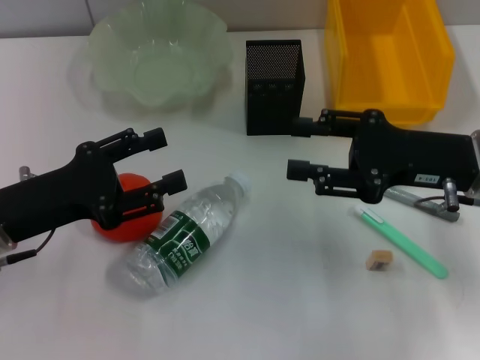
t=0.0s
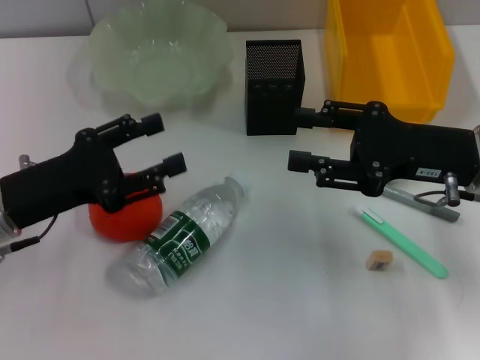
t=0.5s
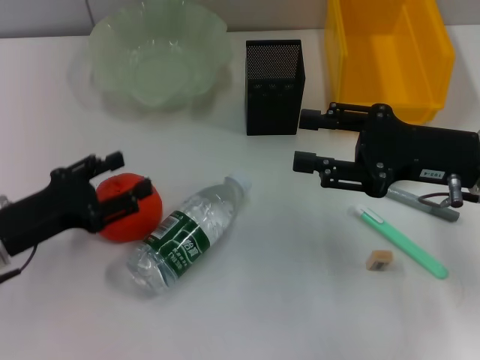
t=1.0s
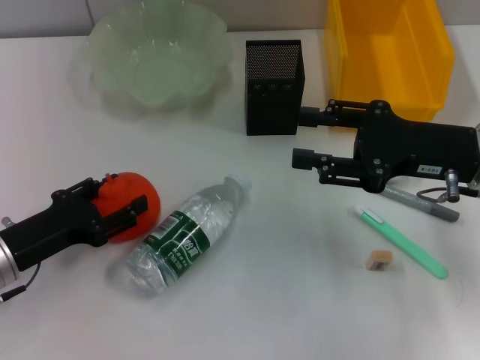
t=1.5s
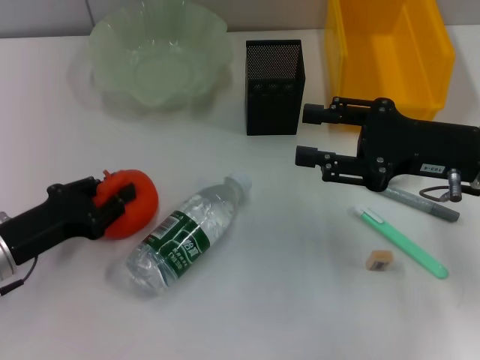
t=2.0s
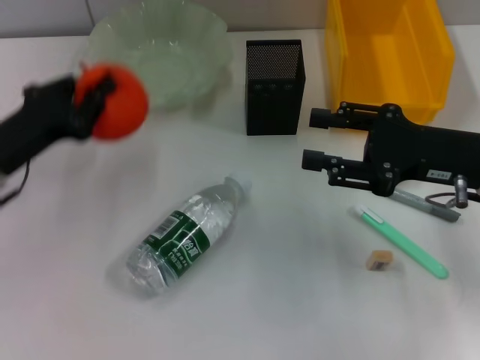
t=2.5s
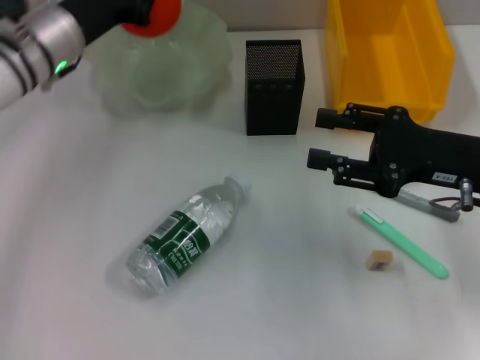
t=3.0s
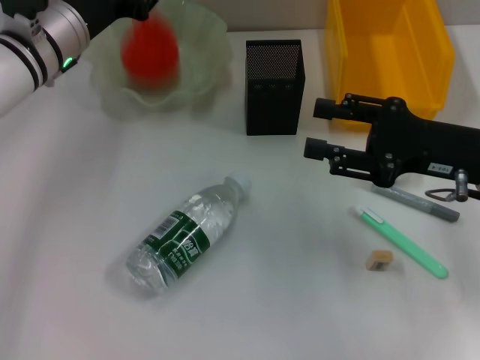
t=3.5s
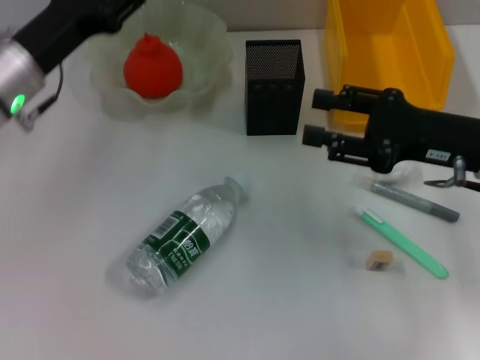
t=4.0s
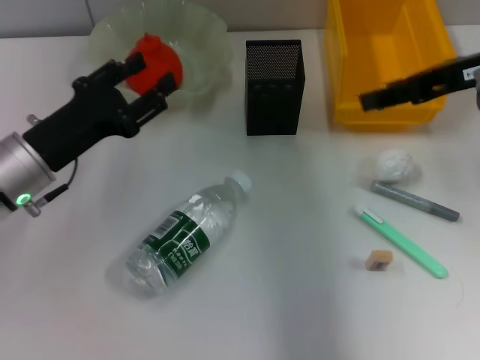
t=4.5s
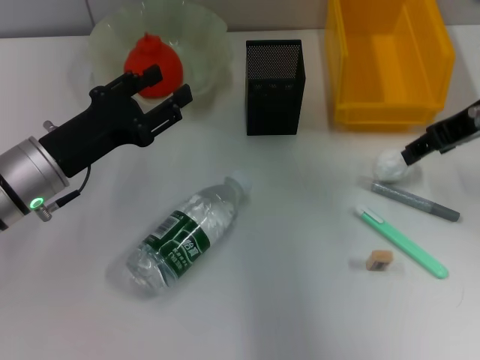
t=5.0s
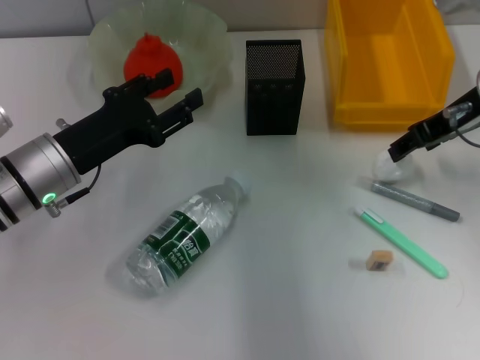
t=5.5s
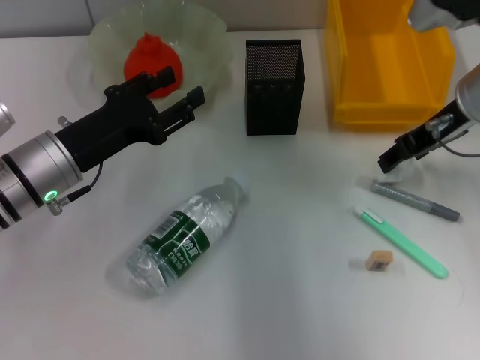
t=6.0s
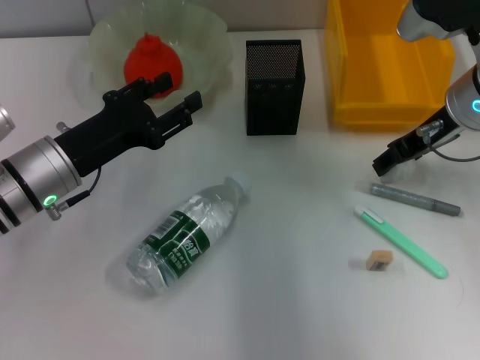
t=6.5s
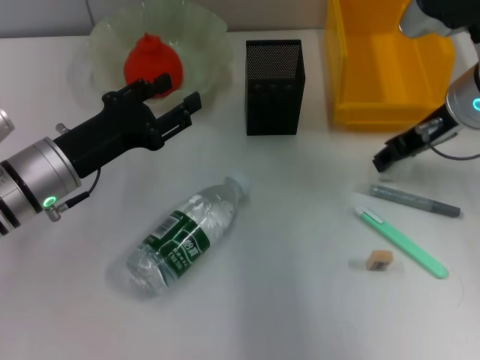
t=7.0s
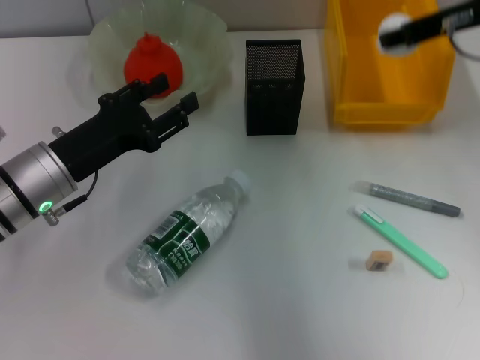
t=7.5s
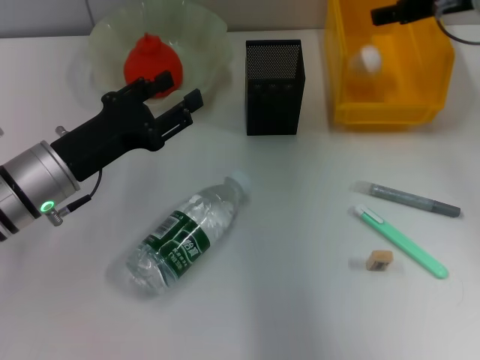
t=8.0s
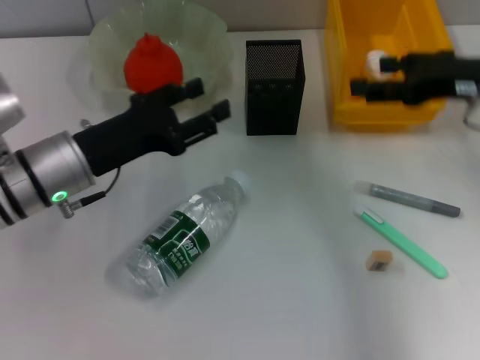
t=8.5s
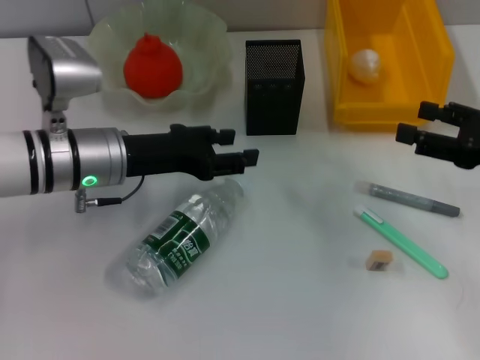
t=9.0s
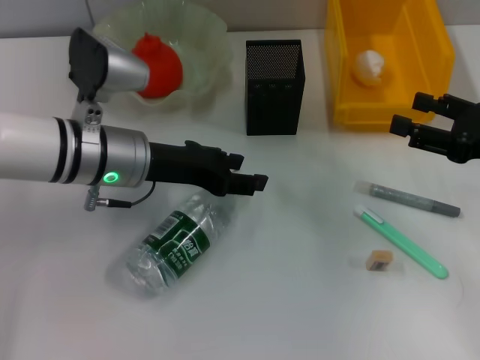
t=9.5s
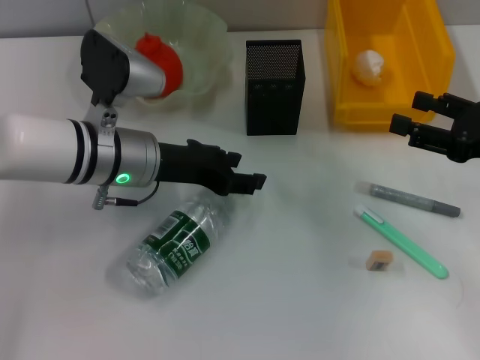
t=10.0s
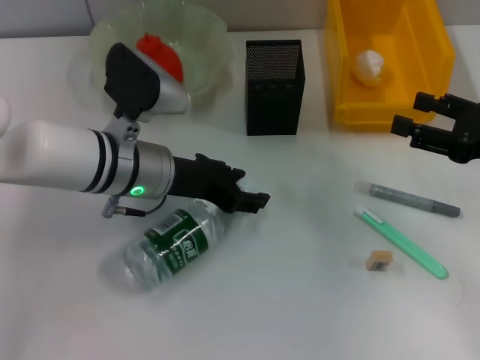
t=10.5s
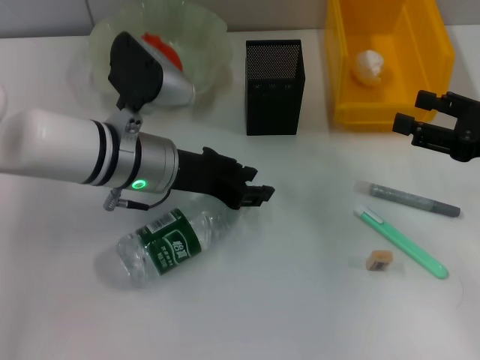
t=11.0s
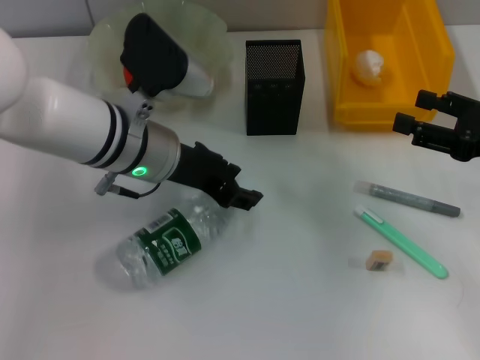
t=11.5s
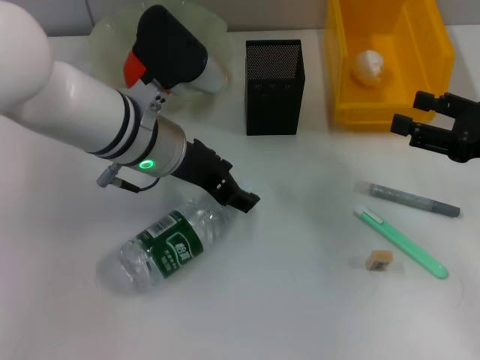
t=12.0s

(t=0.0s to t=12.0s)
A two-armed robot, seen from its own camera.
Step, t=0.0s - t=2.0s: Grab the orange with the left hand.
Step, t=2.5s - t=3.5s: Place the orange into the fruit bowl with the left hand.
Step, t=4.0s - t=6.5s: Grab the paper ball with the right hand.
Step, t=7.0s - t=8.0s: Place the paper ball into the trash can with the right hand.
t=0.0s - t=2.0s: The left gripper goes approximately 5 cm downward.
t=2.0s - t=4.0s: The left gripper heads forward and upward, covering roughly 15 cm, and closes, then reopens.
t=4.0s - t=6.0s: The left gripper shifts by some 5 cm. The right gripper moves forward, about 5 cm.
t=6.0s - t=8.0s: The right gripper moves upward, about 5 cm.
t=8.0s - t=10.0s: The right gripper moves backward, downward and to the right, some 20 cm, while the left gripper moves to the right, roughly 5 cm.
t=10.0s - t=12.0s: The left gripper ends up some 5 cm from where it was.

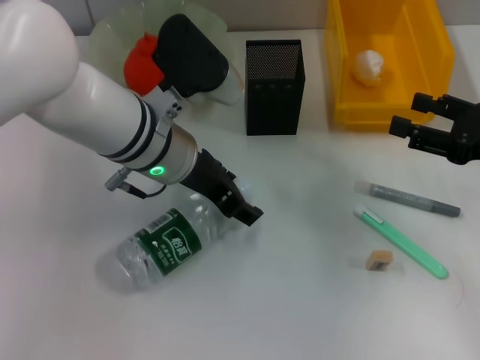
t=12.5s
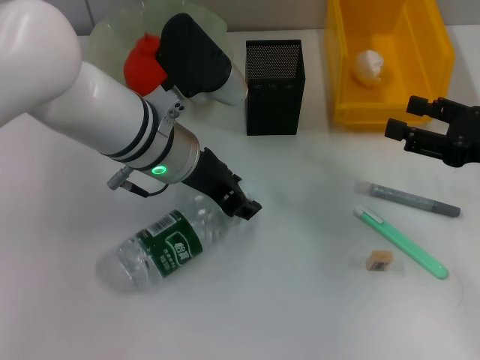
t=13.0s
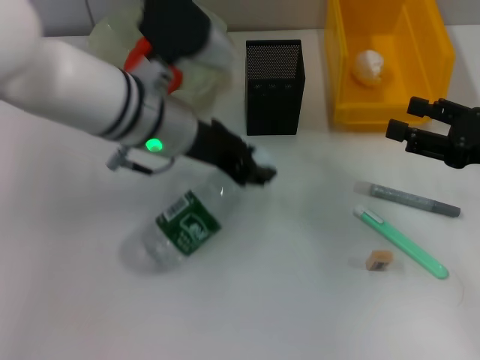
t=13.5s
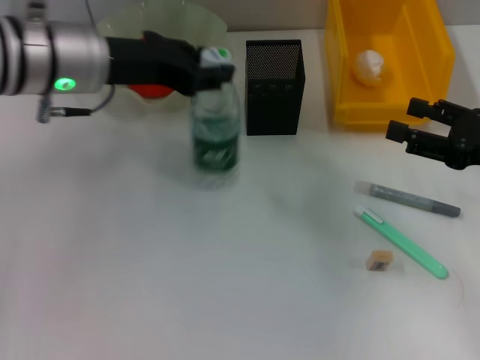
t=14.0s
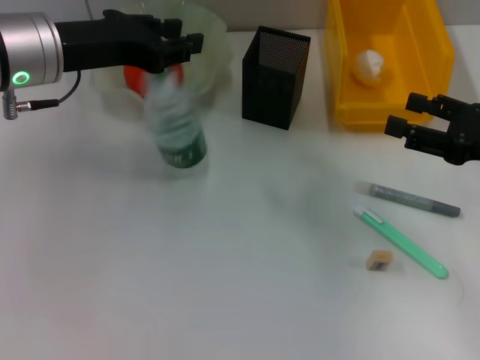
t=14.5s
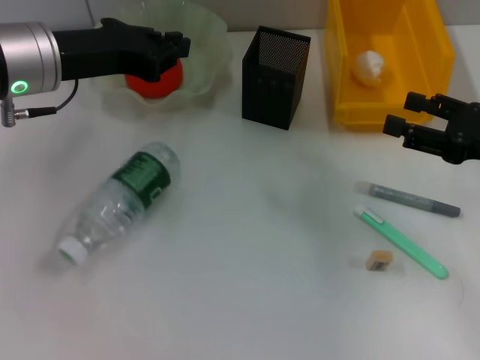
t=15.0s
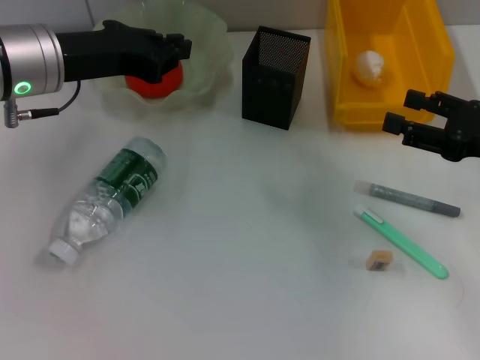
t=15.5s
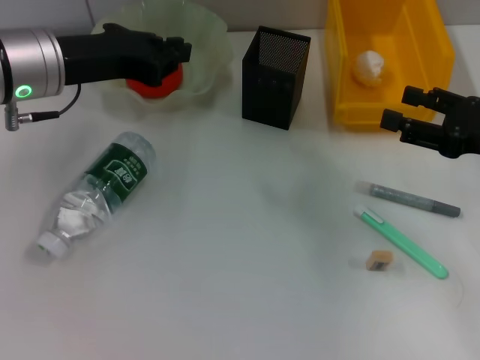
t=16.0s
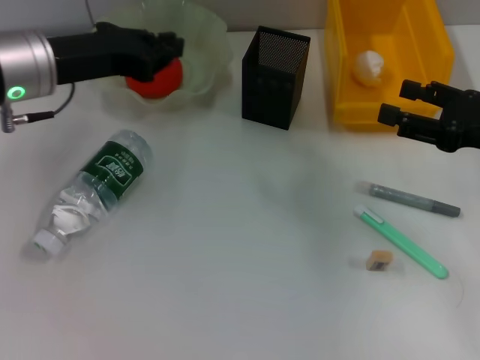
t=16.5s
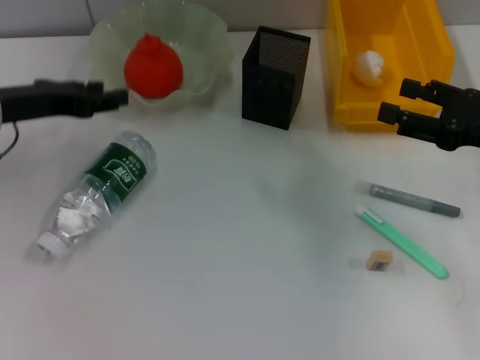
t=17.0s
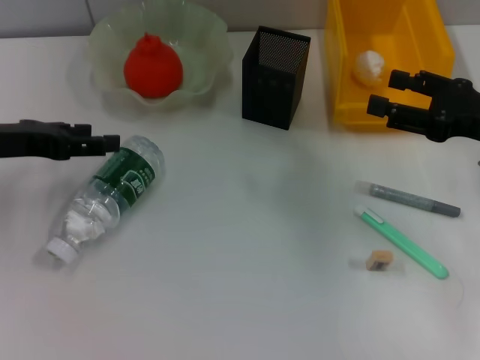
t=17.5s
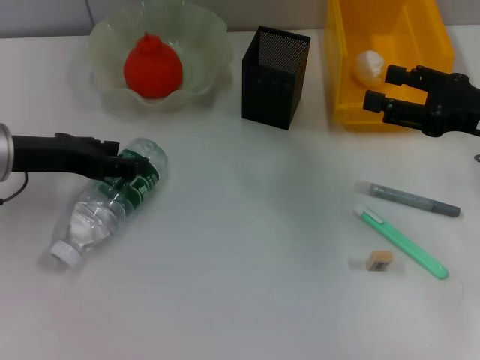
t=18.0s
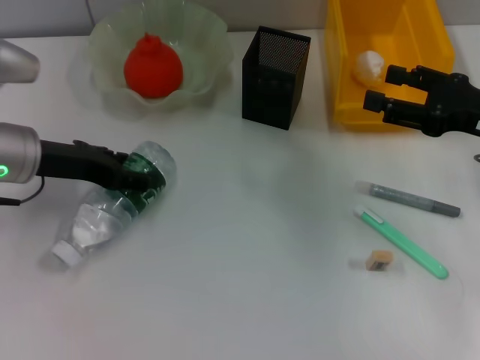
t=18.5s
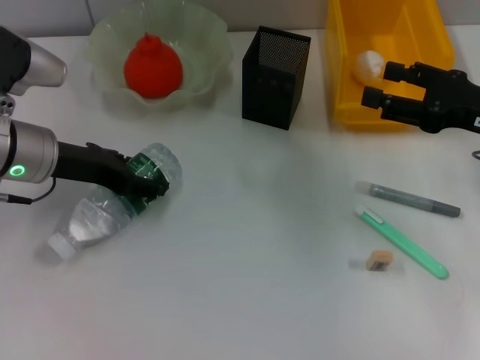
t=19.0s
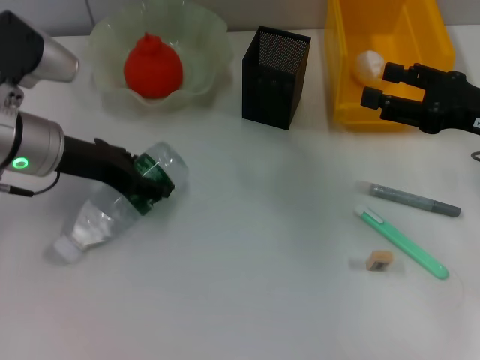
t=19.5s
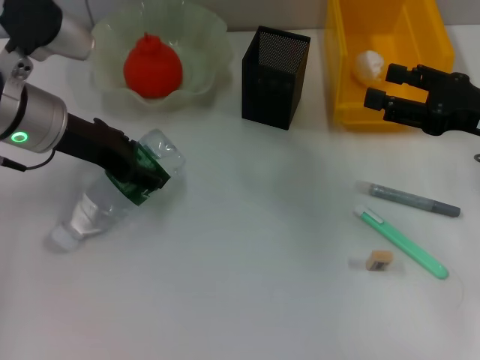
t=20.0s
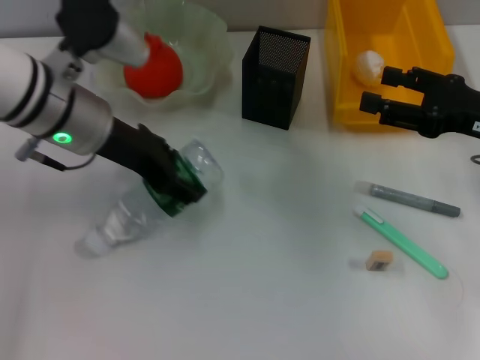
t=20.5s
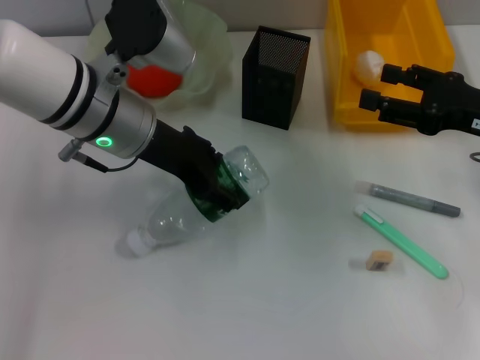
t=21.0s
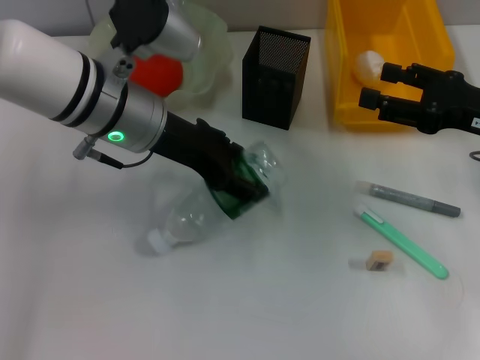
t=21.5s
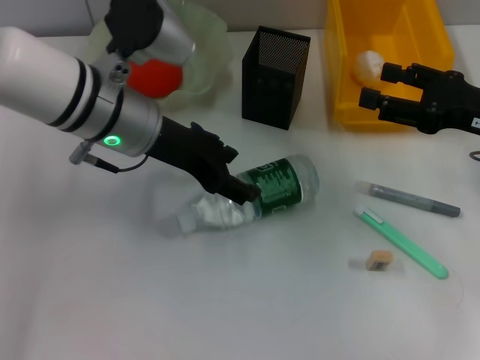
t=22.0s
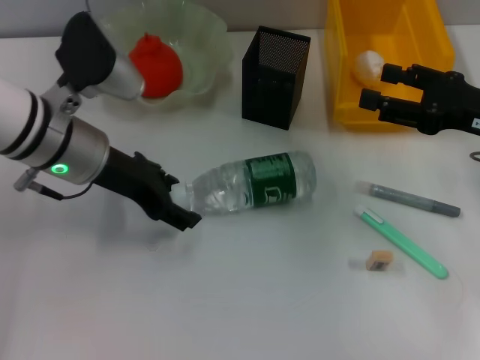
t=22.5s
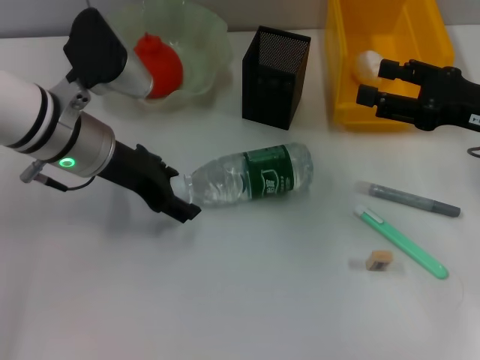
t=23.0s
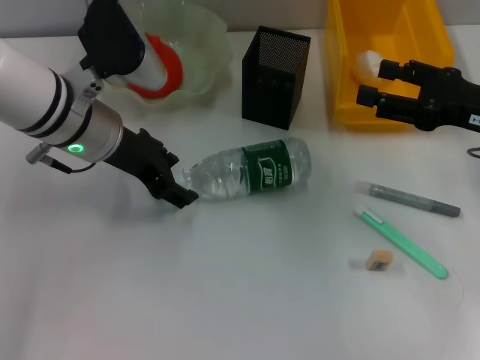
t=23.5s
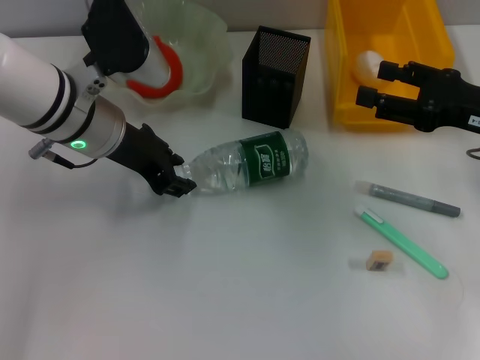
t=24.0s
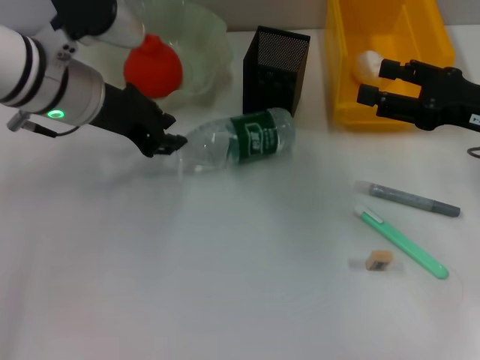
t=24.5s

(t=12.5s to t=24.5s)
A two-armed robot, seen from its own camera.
t=12.5s - t=14.5s: The left gripper goes some 15 cm to the left and upward, and closes its fingers.
t=14.5s - t=16.5s: The left gripper closes its fingers.
t=16.5s - t=18.5s: The left gripper travels downward by about 5 cm, and opens its fingers.
t=18.5s - t=20.5s: The left gripper heads to the right, covering approximately 10 cm.
t=20.5s - t=22.5s: The grippers stay close to where they were, moving slightly.
t=22.5s - t=24.5s: The left gripper closes up.

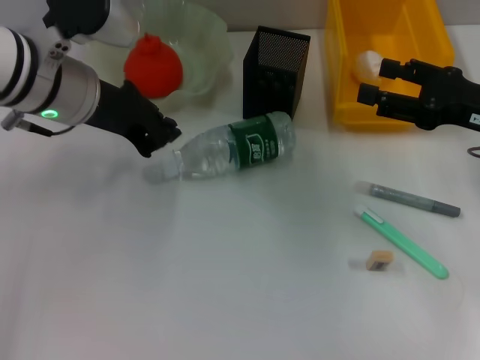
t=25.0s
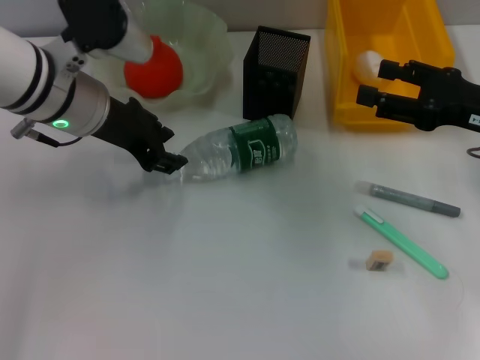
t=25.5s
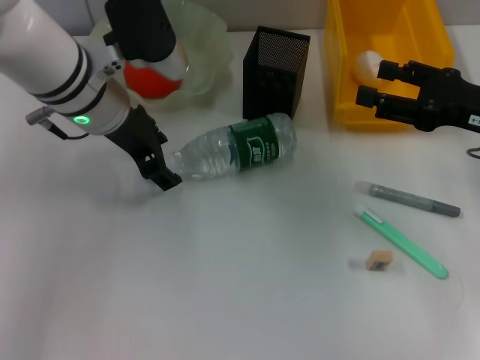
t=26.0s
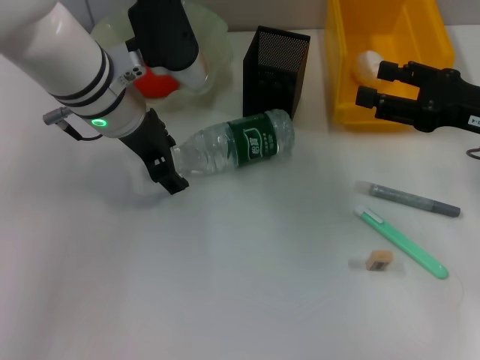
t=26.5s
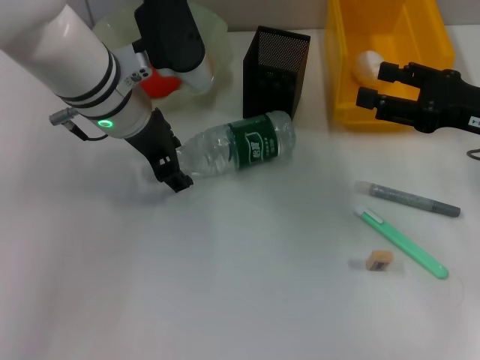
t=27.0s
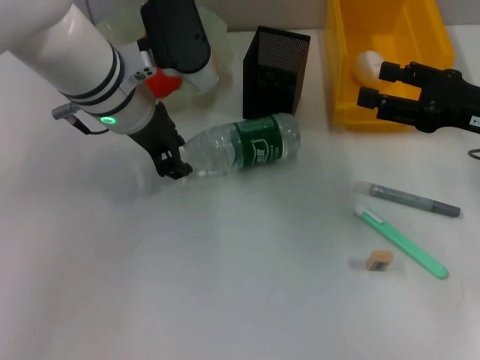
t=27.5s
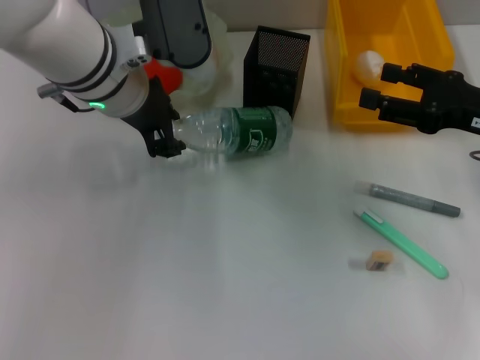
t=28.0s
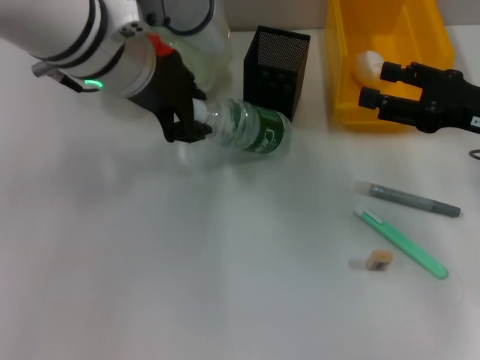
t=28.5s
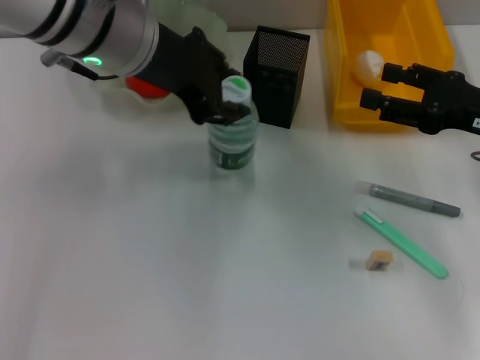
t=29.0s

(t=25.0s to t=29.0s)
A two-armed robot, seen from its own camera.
Step, t=25.0s - t=27.5s: Grab the water bottle with the left hand.
t=25.0s - t=27.0s: The left gripper is displaced to the right by some 5 cm, and opens.
t=27.0s - t=29.0s: The left gripper is displaced upward by about 10 cm, and closes its fingers.
